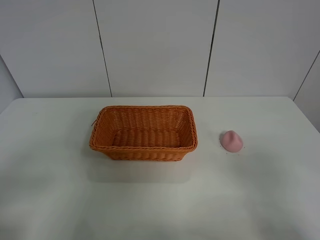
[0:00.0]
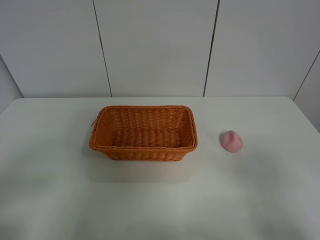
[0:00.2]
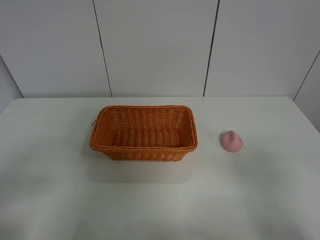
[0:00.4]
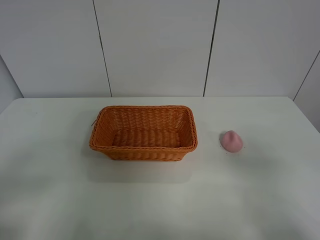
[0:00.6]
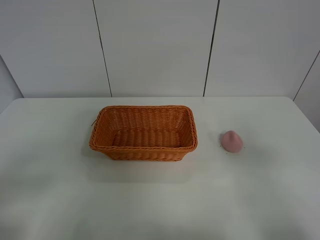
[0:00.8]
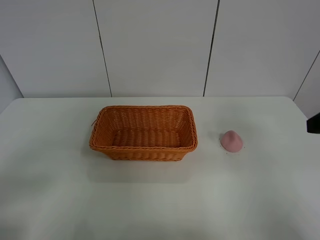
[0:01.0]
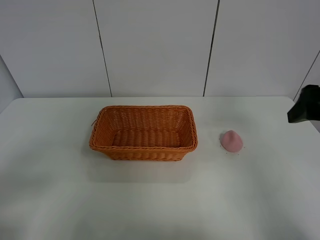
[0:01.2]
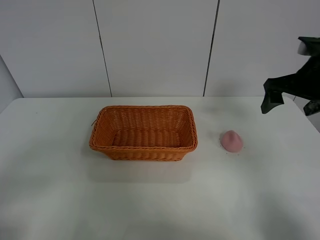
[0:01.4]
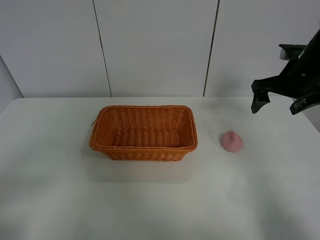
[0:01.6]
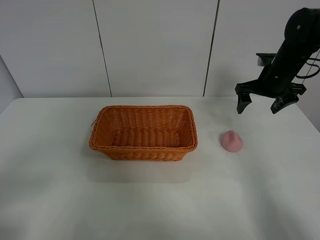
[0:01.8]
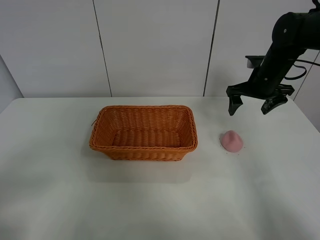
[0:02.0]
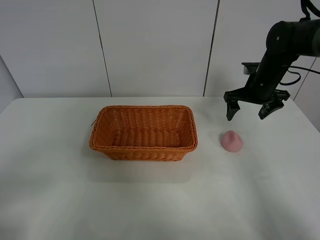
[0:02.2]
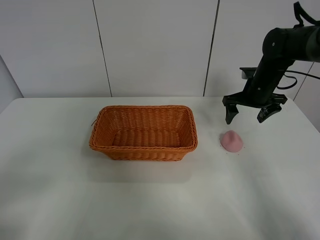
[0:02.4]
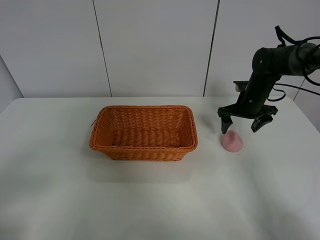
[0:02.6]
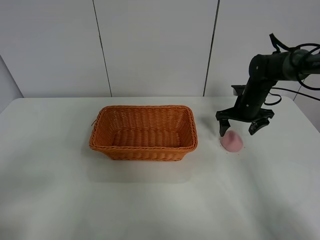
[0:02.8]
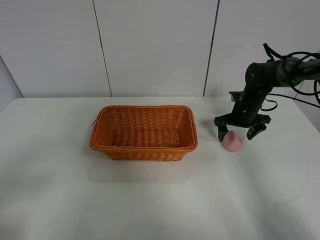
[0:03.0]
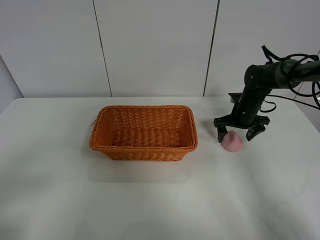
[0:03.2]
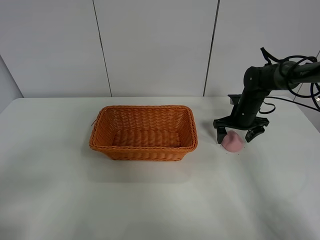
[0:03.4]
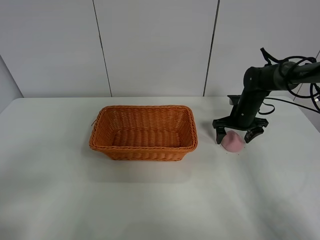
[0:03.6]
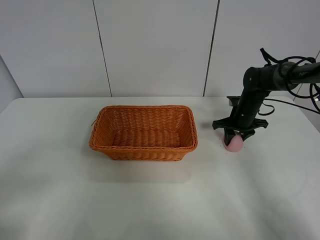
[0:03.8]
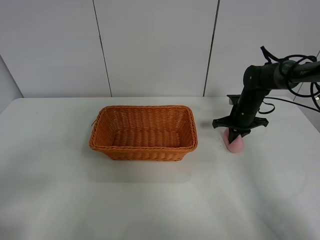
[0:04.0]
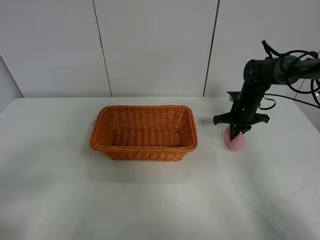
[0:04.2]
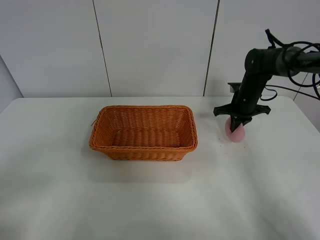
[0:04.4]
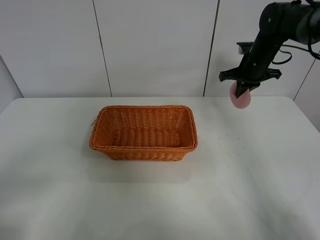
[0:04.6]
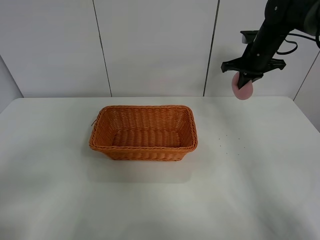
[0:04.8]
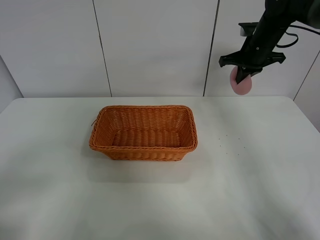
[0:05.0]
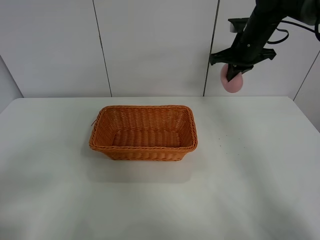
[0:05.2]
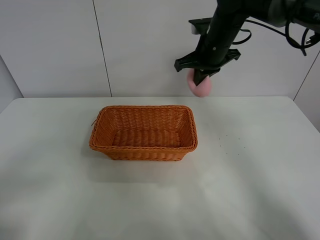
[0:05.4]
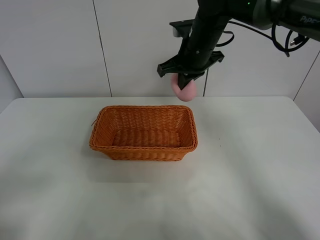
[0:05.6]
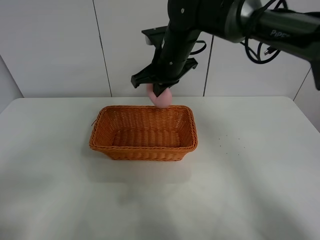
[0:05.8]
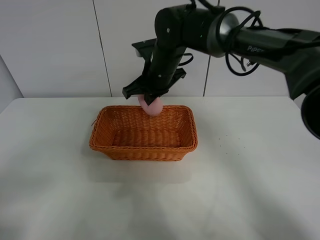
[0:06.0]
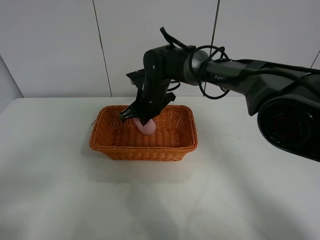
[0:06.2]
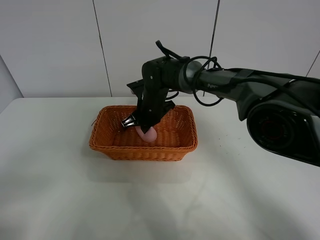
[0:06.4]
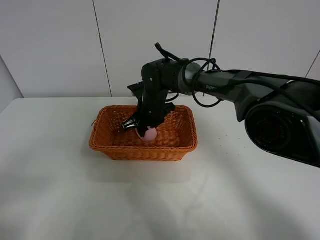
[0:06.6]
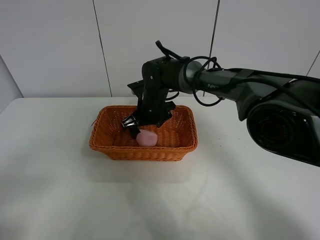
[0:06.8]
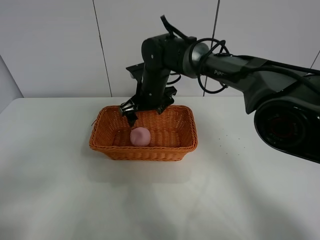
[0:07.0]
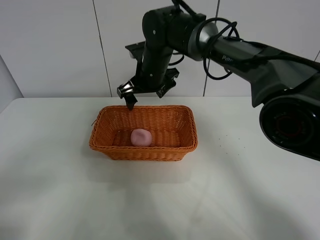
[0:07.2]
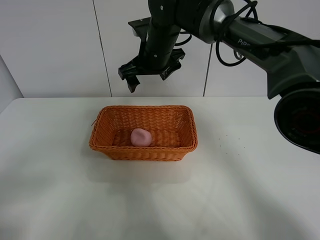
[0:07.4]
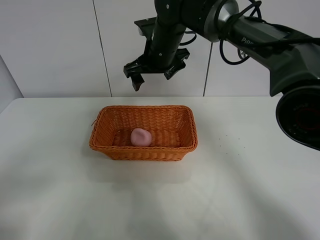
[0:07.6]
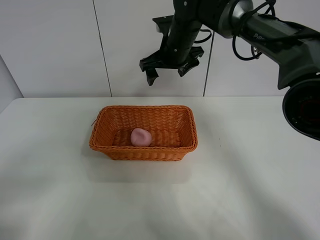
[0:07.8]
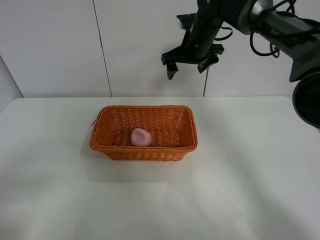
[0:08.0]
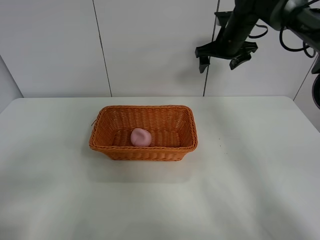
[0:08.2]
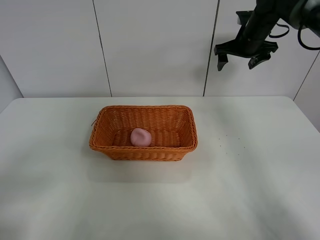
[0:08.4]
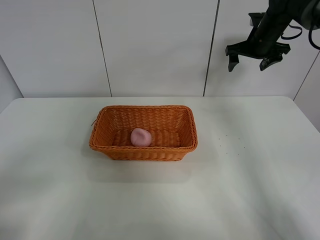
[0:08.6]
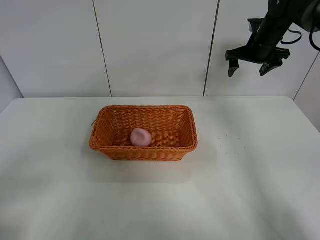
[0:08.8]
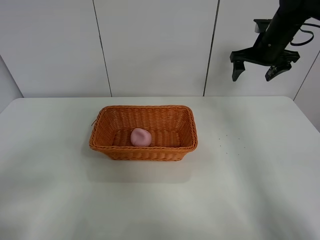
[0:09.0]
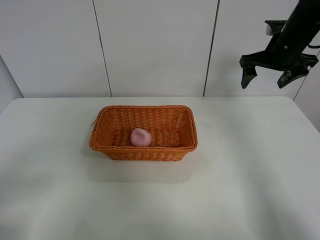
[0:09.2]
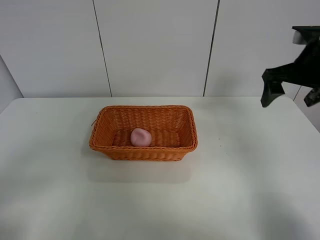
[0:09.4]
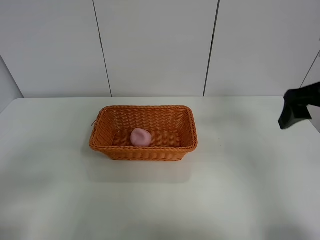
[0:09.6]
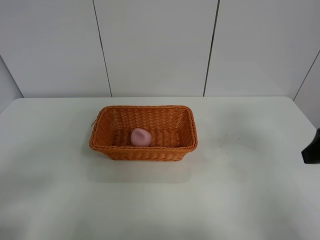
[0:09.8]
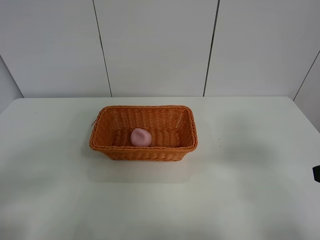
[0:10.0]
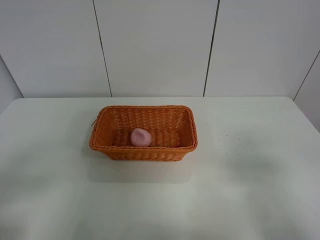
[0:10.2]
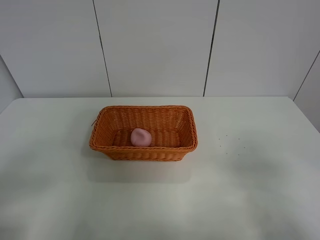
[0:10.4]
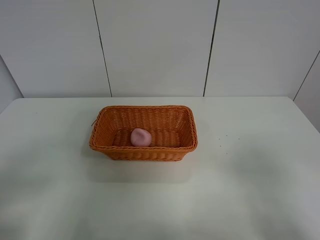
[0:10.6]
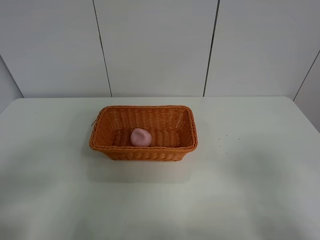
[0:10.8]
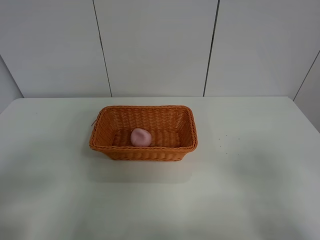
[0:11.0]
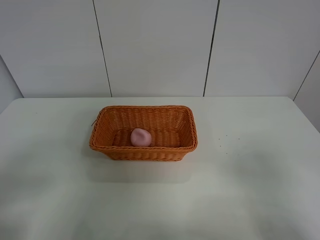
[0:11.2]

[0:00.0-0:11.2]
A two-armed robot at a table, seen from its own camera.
Step, 0:00.0 to 0:04.0: Grasp the peach with right gripper.
Step, 0:04.2 to 0:07.6: Place the peach in the basket with right gripper.
0:00.0 to 0:01.6: The right gripper travels forward by some 35 cm.
0:01.6 to 0:03.2: The right gripper heads downward and forward, covering some 20 cm.
0:03.2 to 0:04.8: The right gripper goes roughly 15 cm upward, and closes.
0:04.8 to 0:06.4: The right gripper moves to the left and downward, some 30 cm.
0:06.4 to 0:08.0: The right gripper heads upward, to the right and forward, covering roughly 20 cm, and opens its fingers.
0:08.0 to 0:09.6: The right gripper is displaced backward and to the right by roughly 30 cm.
0:09.6 to 0:11.2: The right gripper heads backward, covering approximately 25 cm.
